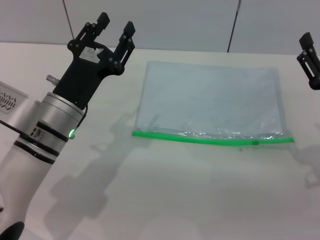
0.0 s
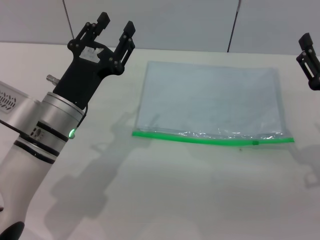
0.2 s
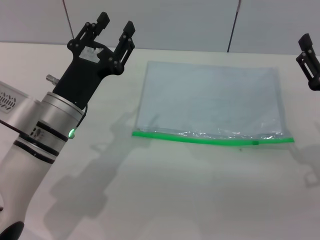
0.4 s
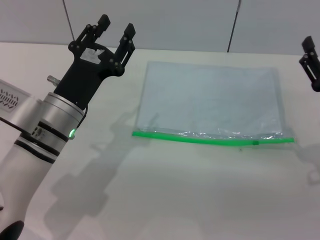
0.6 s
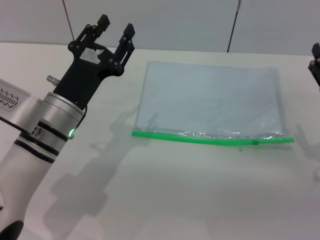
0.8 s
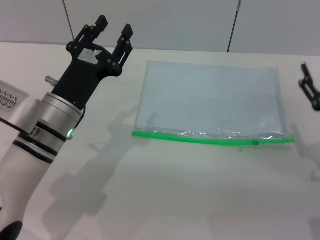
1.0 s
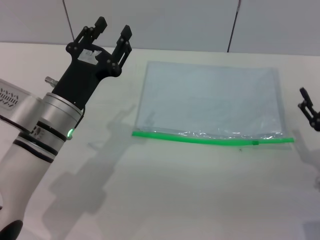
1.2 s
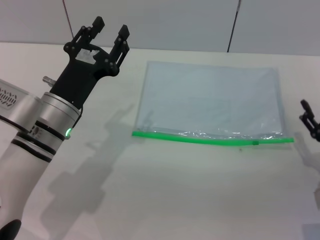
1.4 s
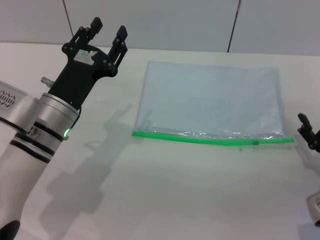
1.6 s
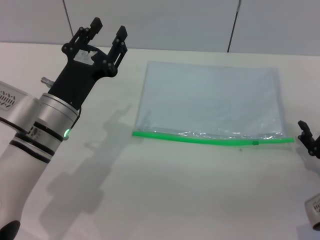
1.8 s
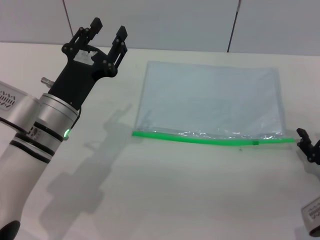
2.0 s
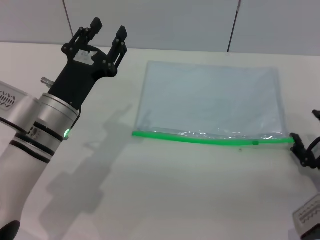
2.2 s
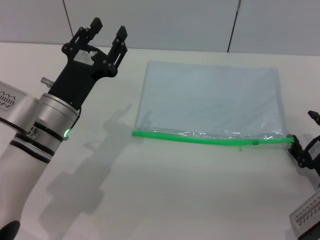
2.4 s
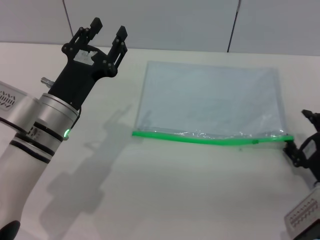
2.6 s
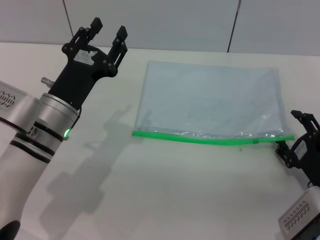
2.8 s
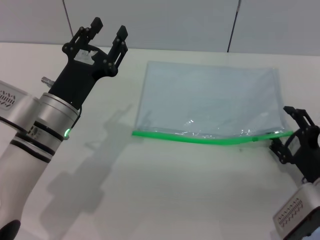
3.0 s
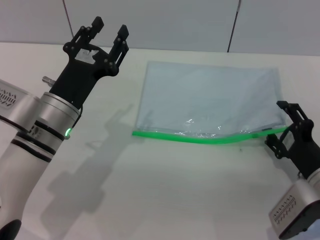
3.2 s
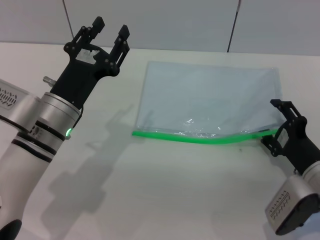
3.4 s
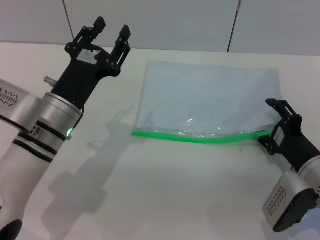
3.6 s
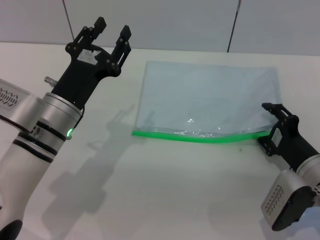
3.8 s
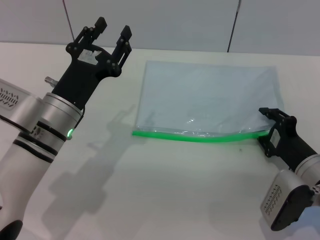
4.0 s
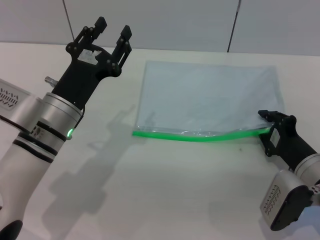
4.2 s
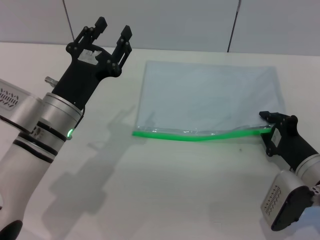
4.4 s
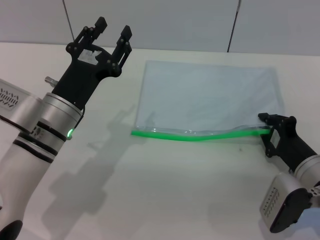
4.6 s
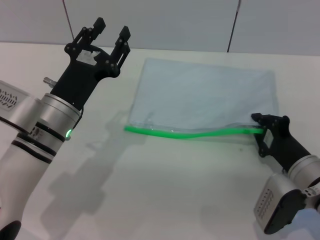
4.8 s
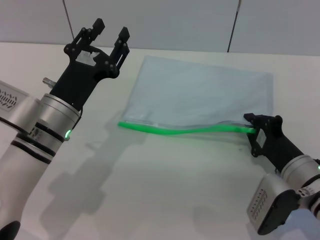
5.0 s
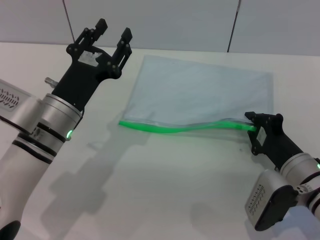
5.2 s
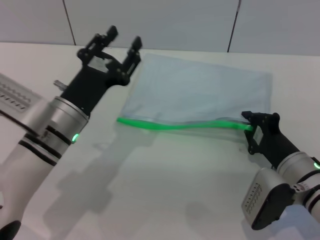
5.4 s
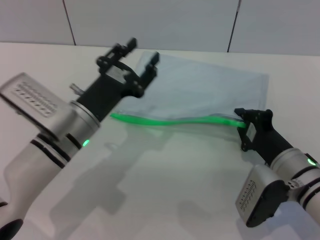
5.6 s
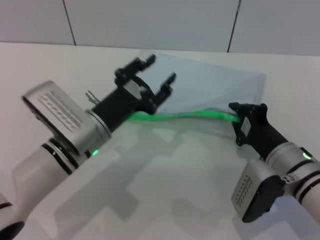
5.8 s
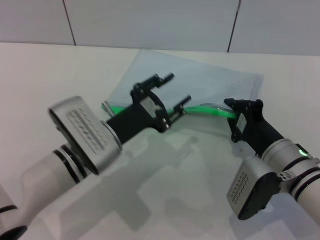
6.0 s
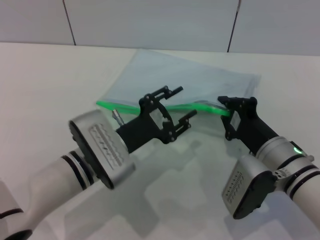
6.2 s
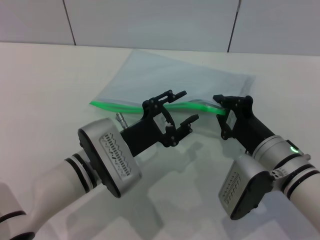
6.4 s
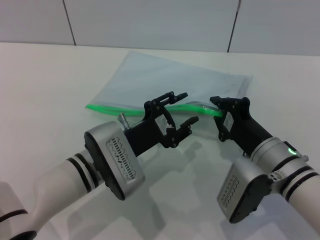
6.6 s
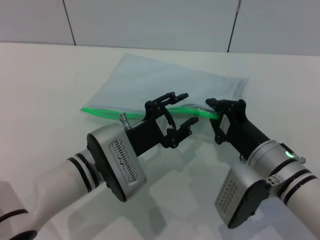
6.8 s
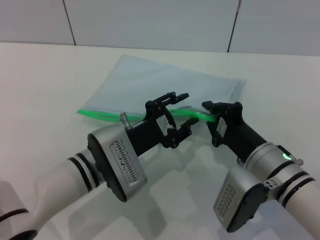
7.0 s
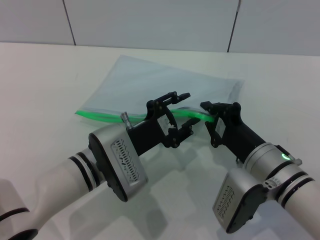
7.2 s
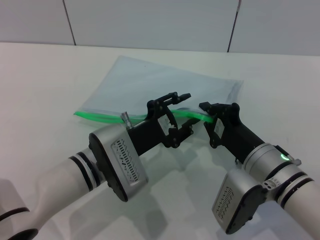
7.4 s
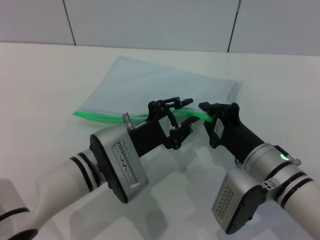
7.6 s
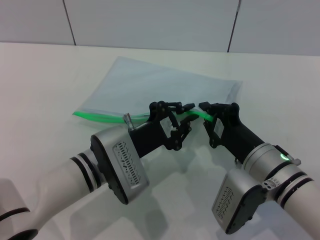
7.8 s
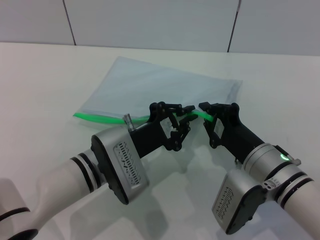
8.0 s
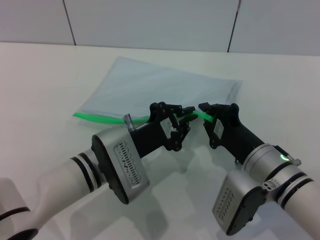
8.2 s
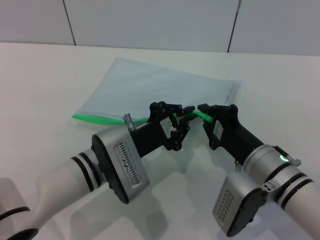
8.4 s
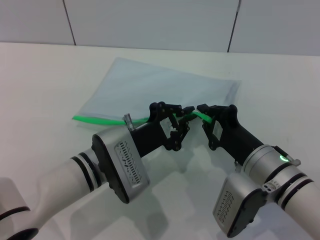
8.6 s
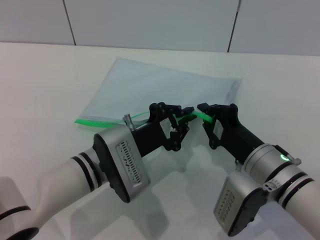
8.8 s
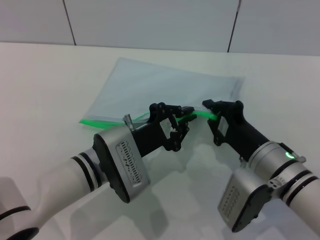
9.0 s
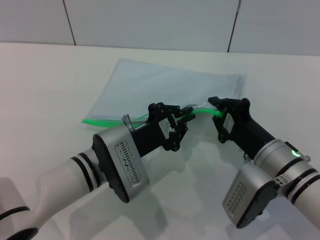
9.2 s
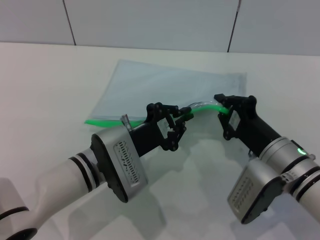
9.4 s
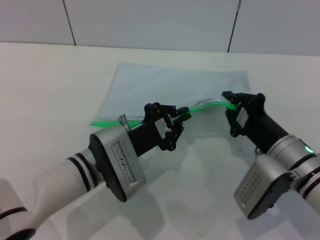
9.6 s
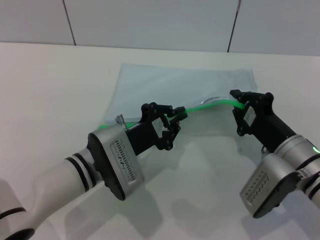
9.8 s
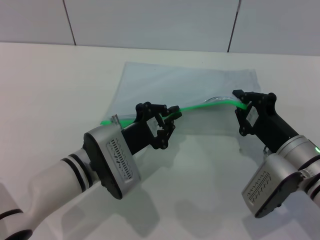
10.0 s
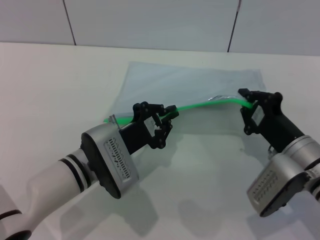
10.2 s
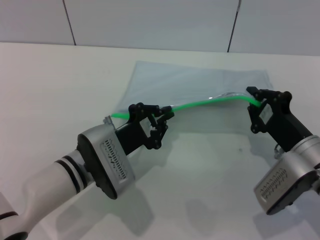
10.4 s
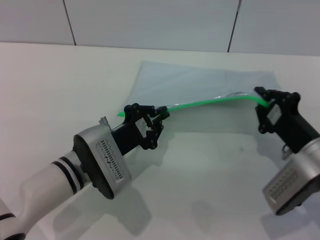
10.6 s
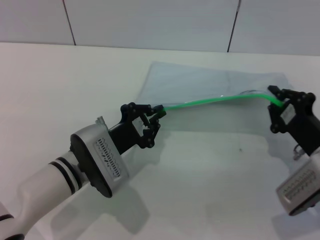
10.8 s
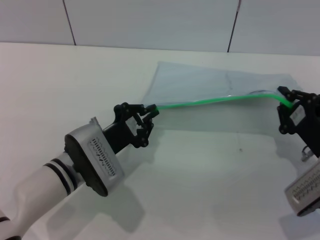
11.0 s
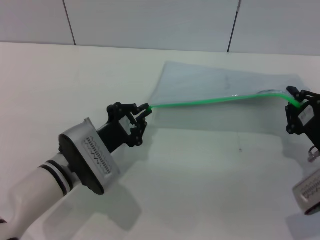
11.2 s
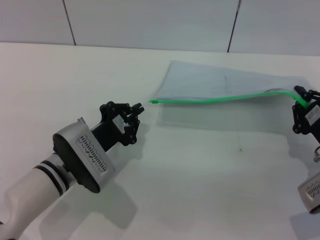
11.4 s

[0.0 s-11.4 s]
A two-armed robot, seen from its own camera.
Step, 0.0 to 5.6 s: Pick up the transparent plastic bag with the right gripper.
Step, 5.8 to 11.2 s: Pulling up the zipper on the transparent plastic bag with the left gripper to close it.
0.0 to 1.4 s: The right gripper shifts roughly 5 cm downward.
2.8 to 4.2 s: The grippers make only small movements.
4.2 to 5.6 s: The right gripper closes its fingers.
5.6 to 7.2 s: The left gripper moves about 5 cm.
7.2 to 8.6 s: The left gripper closes its fingers.
8.6 to 10.0 s: The right gripper ends up about 5 cm from where it was.
10.0 to 11.4 s: The right gripper travels to the right by some 10 cm.

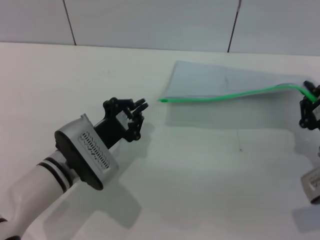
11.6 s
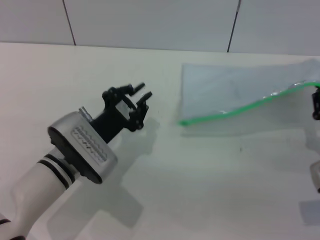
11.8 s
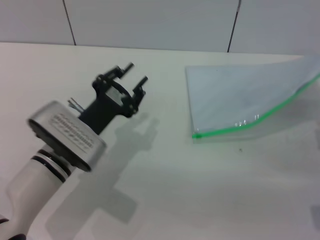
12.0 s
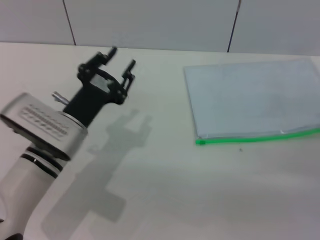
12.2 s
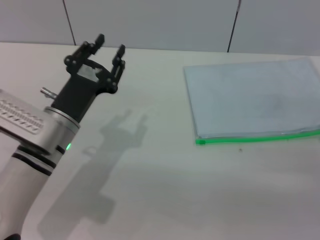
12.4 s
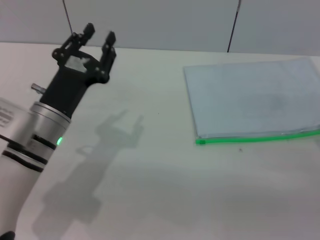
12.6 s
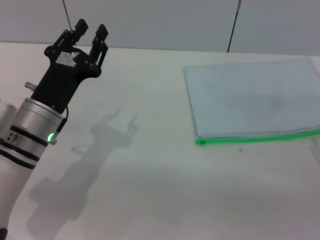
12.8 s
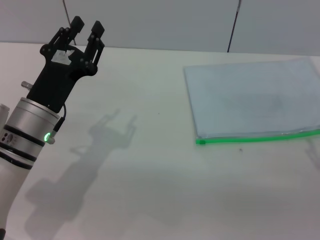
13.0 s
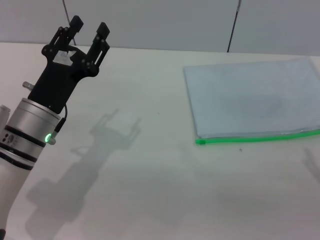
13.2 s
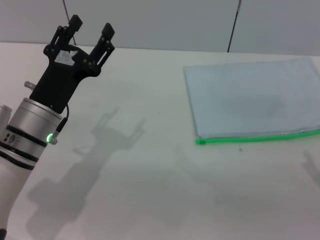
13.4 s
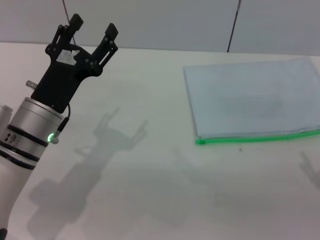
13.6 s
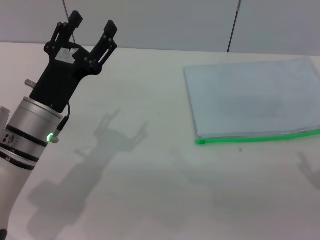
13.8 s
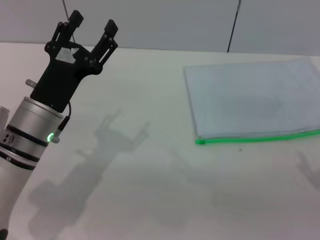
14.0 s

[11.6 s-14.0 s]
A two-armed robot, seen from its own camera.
Step, 11.6 to 12.4 s: Place the transparent plastic bag.
11.6 to 12.8 s: The right gripper ends up approximately 5 cm from where it was, and opens, while the left gripper heads upward, covering approximately 5 cm, and opens.
12.8 to 14.0 s: The left gripper opens up.

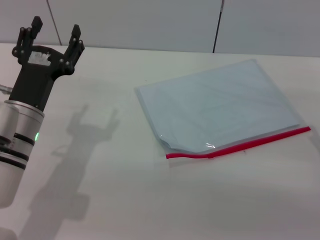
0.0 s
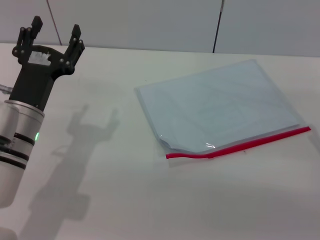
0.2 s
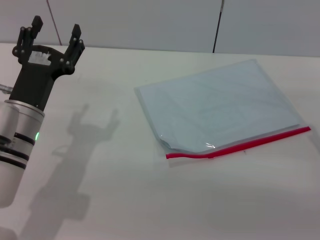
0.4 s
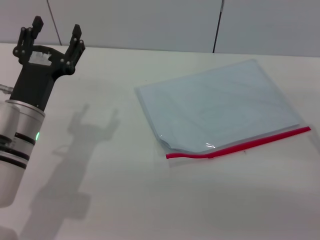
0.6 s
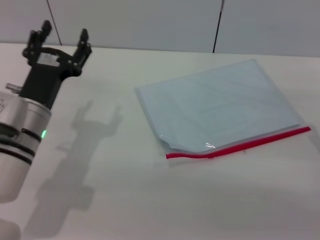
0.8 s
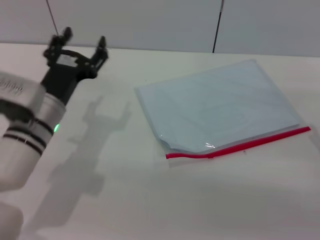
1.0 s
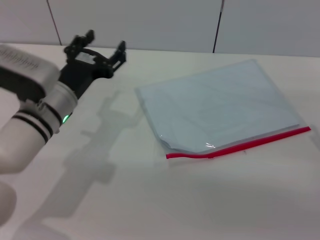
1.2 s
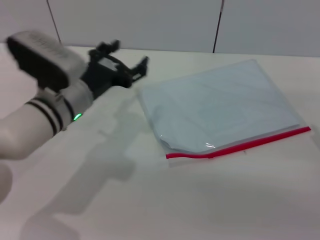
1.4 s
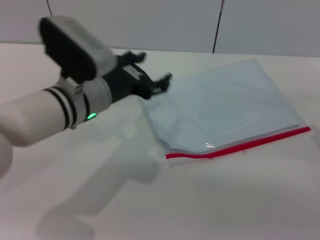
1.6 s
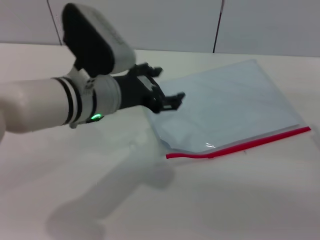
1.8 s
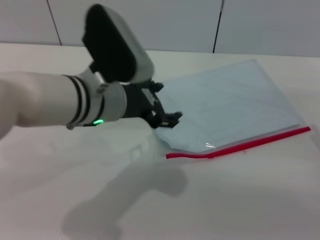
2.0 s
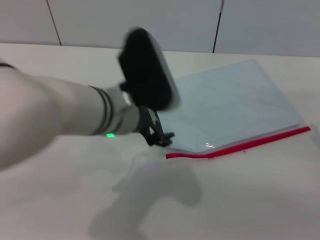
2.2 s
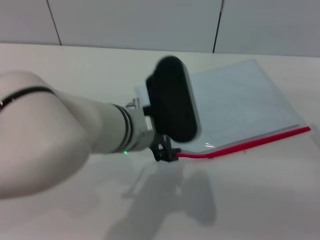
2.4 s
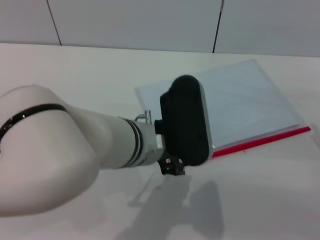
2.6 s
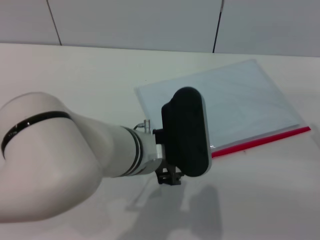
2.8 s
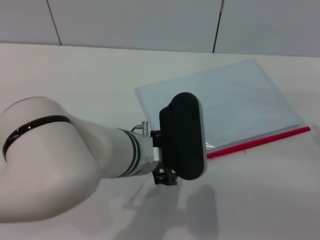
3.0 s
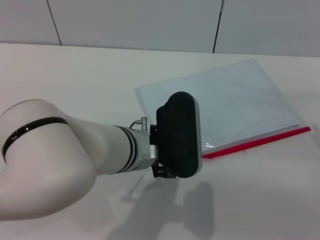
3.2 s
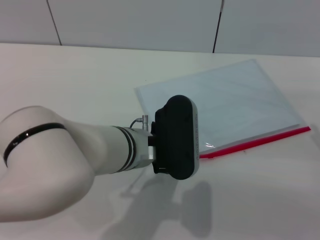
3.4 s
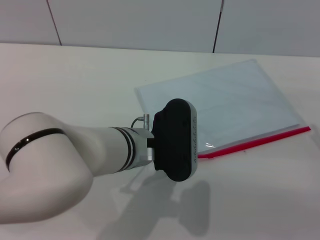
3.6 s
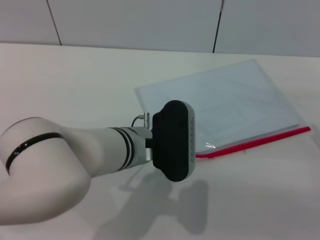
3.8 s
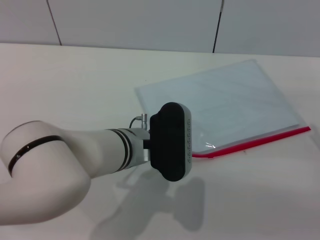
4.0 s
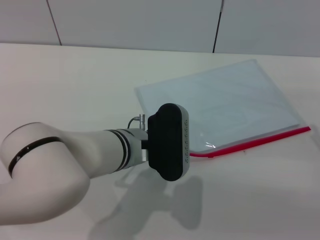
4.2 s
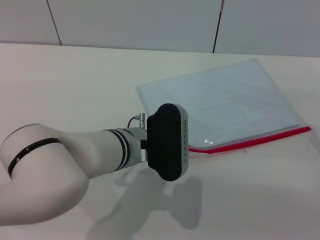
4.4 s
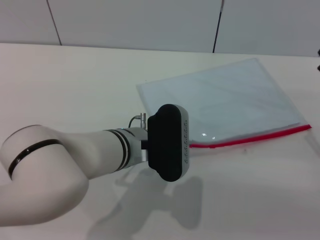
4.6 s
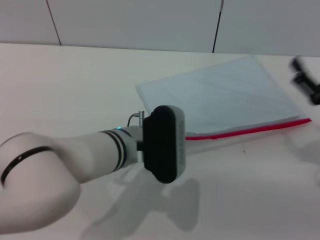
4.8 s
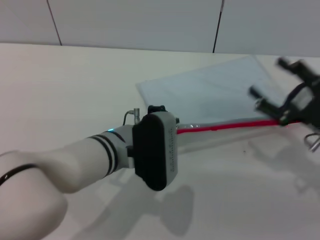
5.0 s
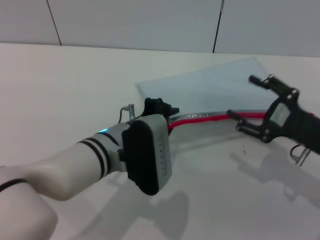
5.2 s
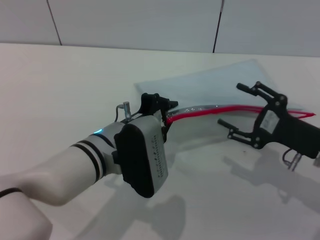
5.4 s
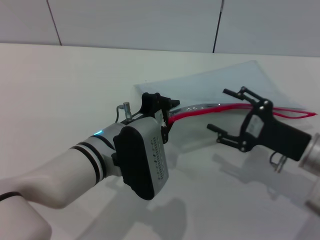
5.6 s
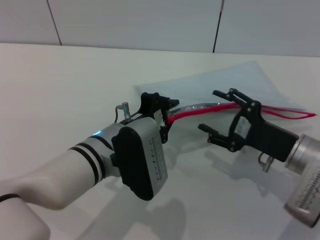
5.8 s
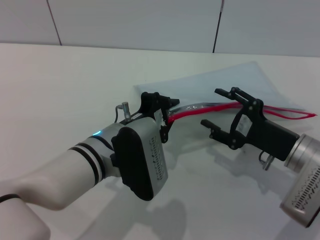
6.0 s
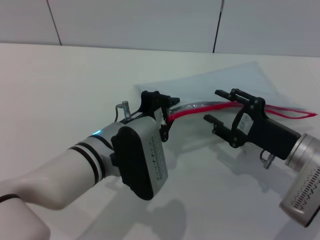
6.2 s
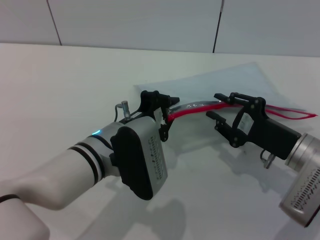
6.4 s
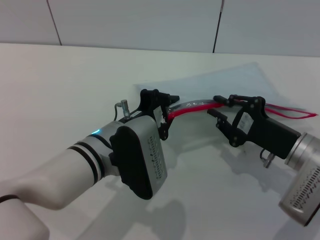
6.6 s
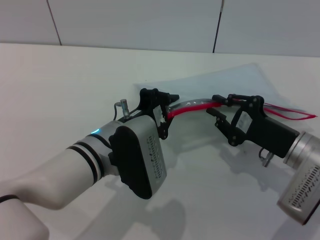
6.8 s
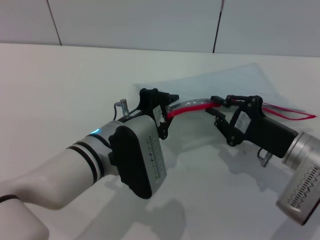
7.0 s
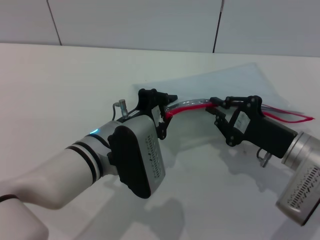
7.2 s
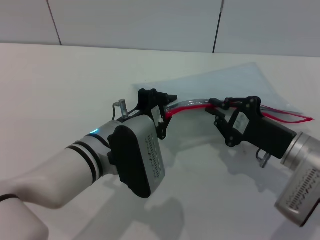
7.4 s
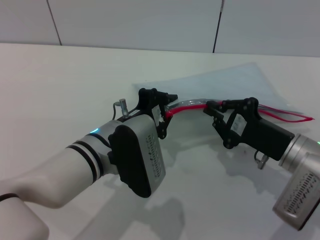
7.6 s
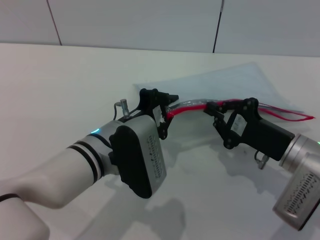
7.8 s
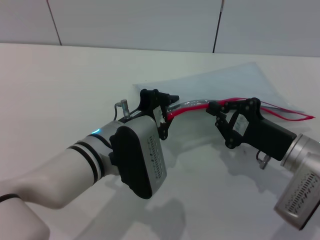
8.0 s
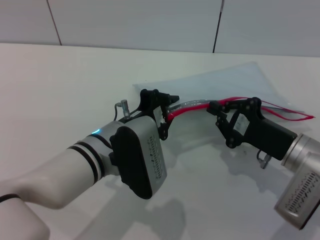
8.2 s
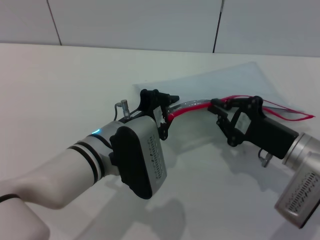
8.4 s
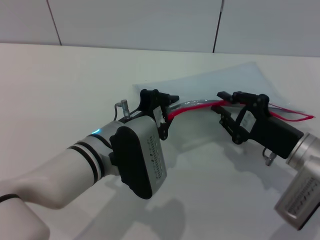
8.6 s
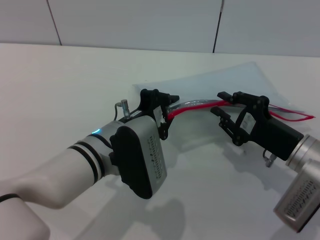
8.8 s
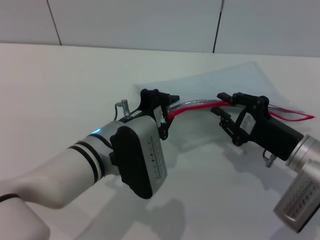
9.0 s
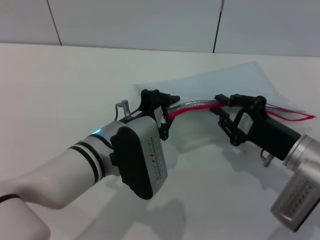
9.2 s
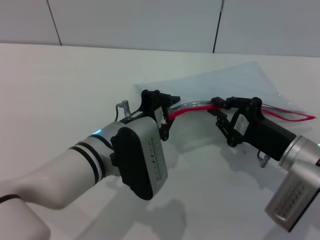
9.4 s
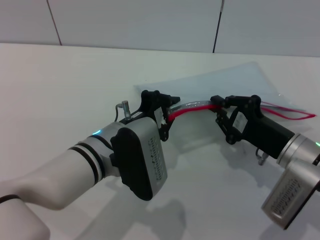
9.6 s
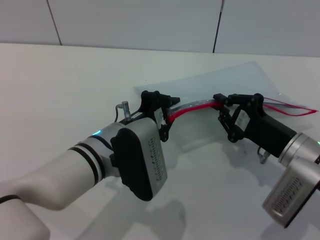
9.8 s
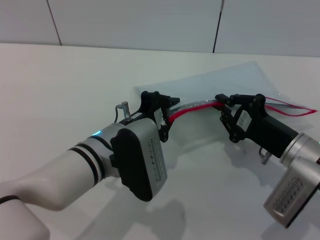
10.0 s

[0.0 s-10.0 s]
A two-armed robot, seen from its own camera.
Step, 0.0 to 4.8 s: Pick up the transparent plastic bag with the left gripper.
0.0 to 1.4 s: The left gripper heads to the right, covering approximately 5 cm.
1.4 to 2.8 s: The left gripper travels to the right and backward by approximately 15 cm.
2.8 to 4.2 s: The left gripper goes some 5 cm downward.
4.2 to 5.8 s: The left gripper closes its fingers; the right gripper is displaced to the left by about 10 cm.
5.8 to 7.2 s: The right gripper closes its fingers.
7.2 to 8.6 s: The grippers stay close to where they were, moving slightly.
8.6 to 10.0 s: Neither gripper changes place.
